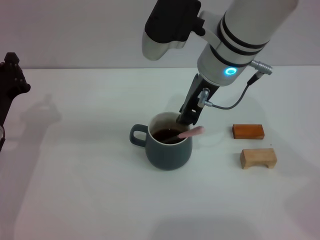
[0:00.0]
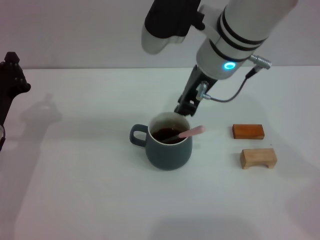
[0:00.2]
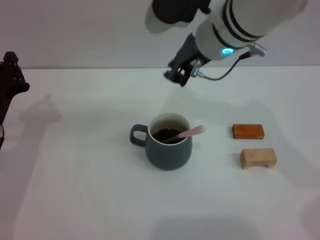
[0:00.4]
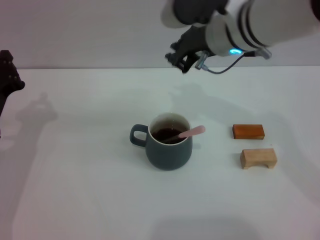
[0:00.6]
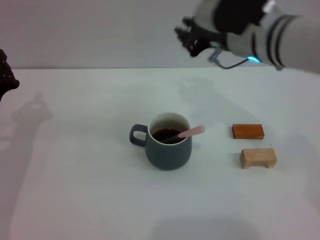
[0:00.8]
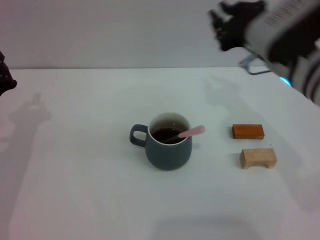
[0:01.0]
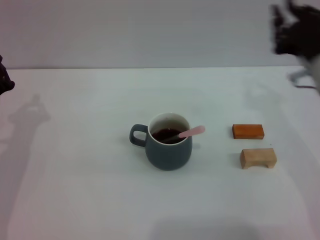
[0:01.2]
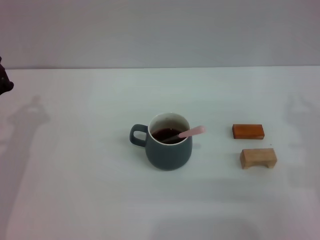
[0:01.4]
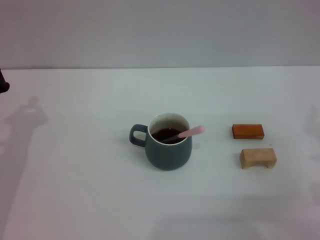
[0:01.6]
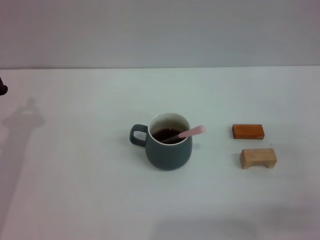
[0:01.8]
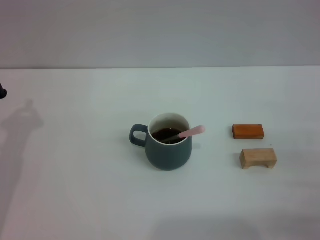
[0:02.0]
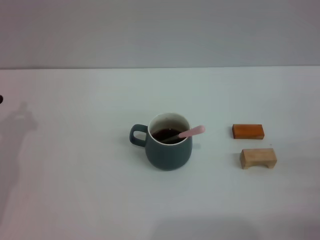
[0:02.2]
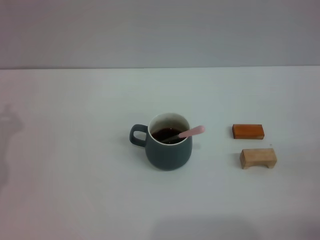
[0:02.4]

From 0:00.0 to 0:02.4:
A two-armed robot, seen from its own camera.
Task of the whole recording: Move the grey cup to the center, lift the pink spoon, stir it three times in the cup, and put the spoon into the cup.
From 0:00.0 to 0:01.2: The right gripper heads to the right, backward and downward, covering about 20 cm.
From 0:01.2 to 0:02.4: The right gripper shifts some 20 cm to the right, downward and backward.
